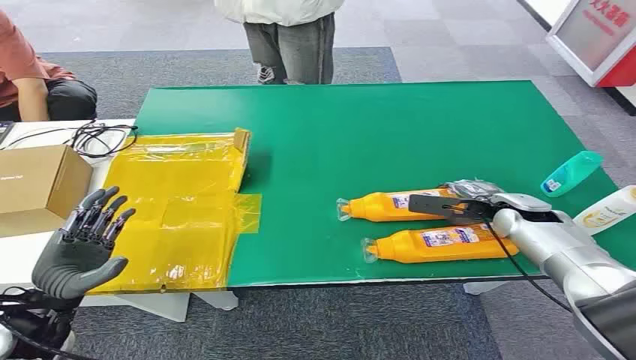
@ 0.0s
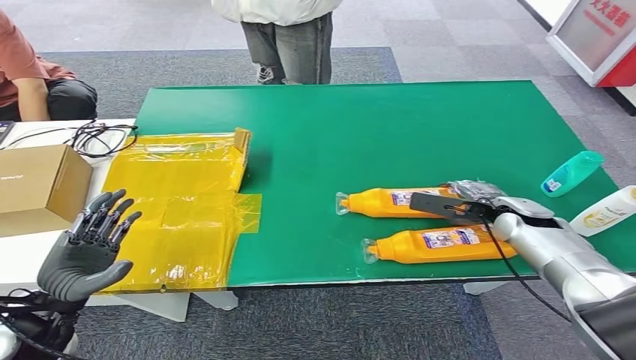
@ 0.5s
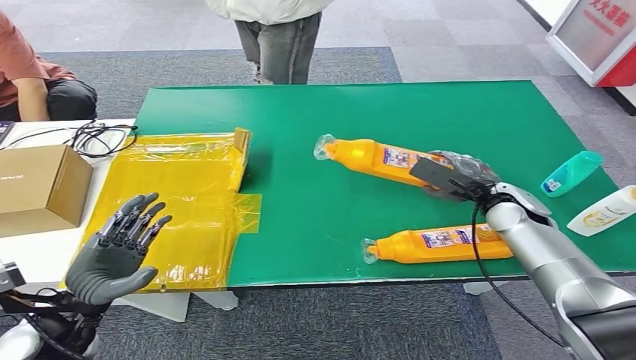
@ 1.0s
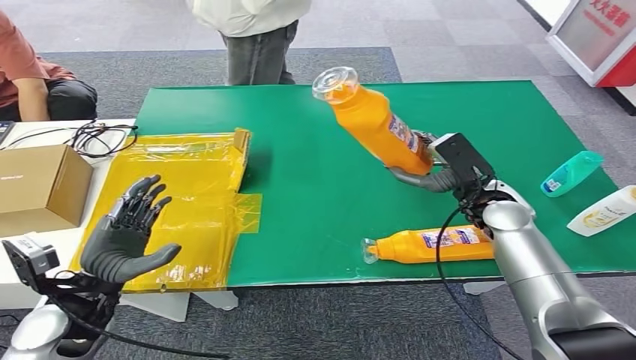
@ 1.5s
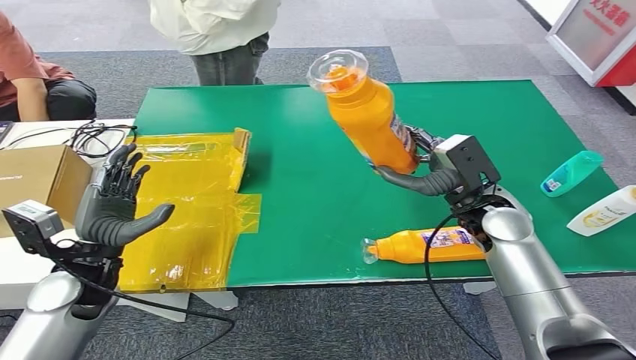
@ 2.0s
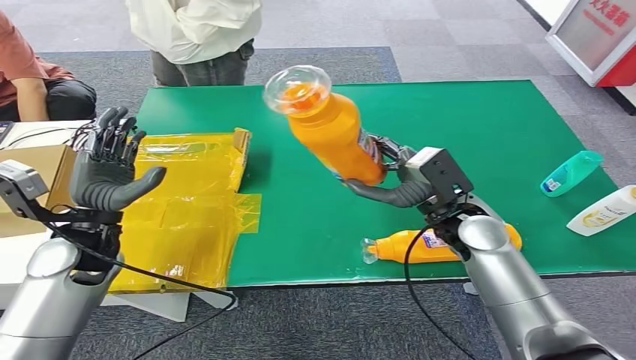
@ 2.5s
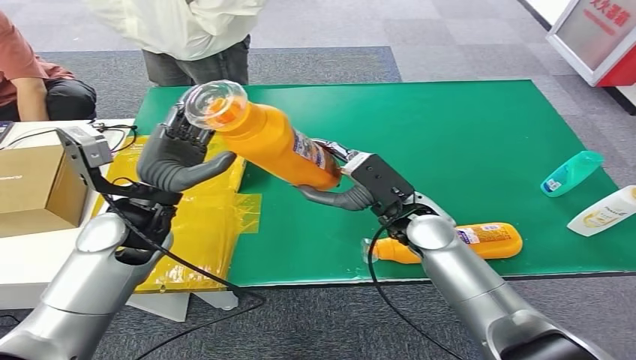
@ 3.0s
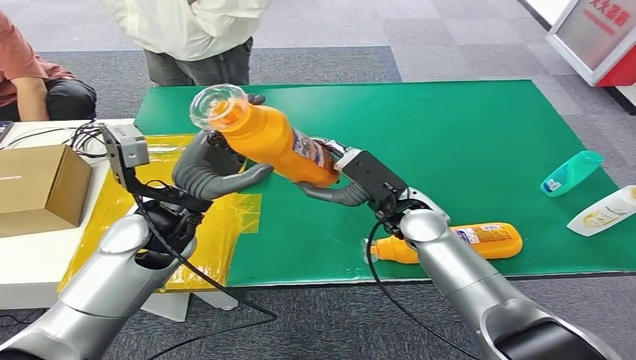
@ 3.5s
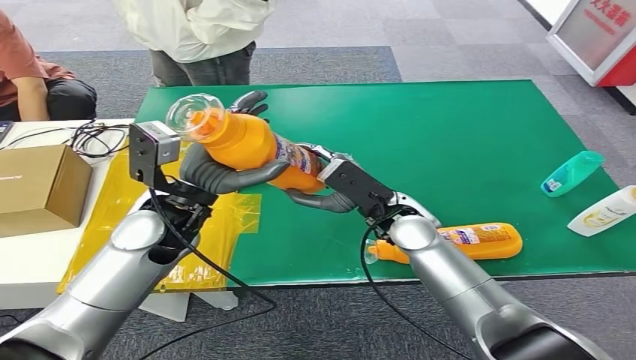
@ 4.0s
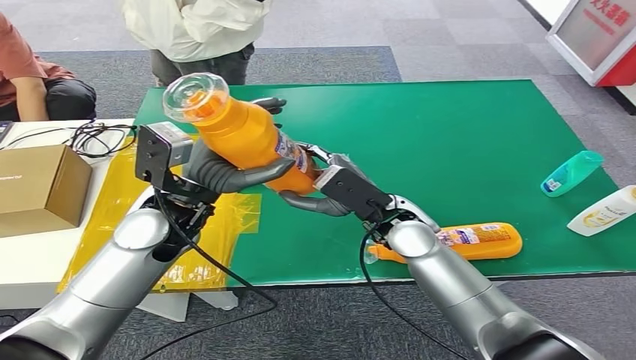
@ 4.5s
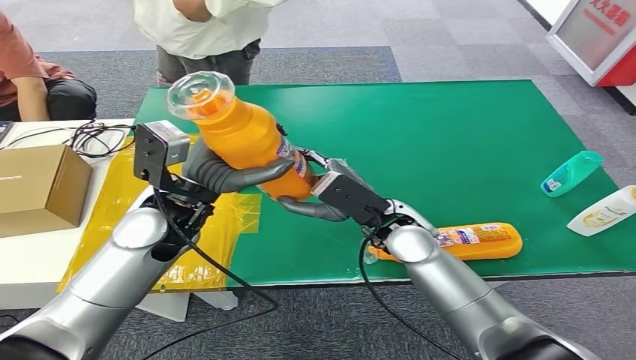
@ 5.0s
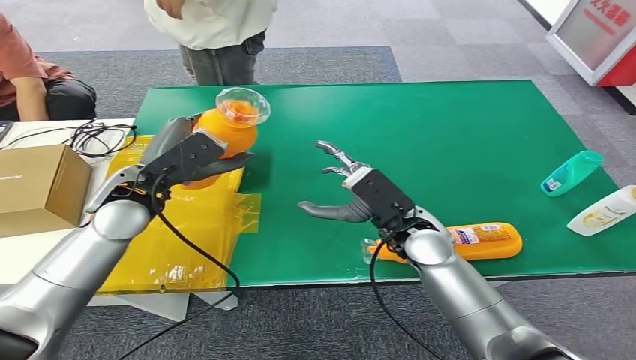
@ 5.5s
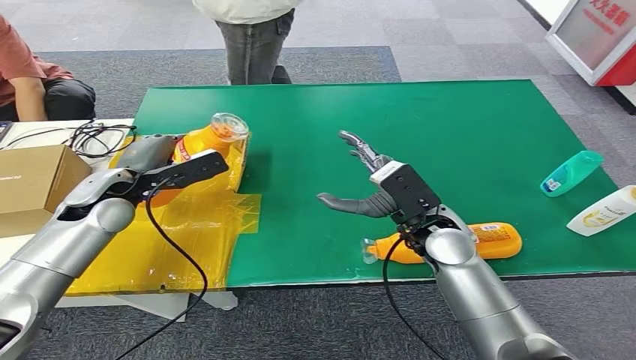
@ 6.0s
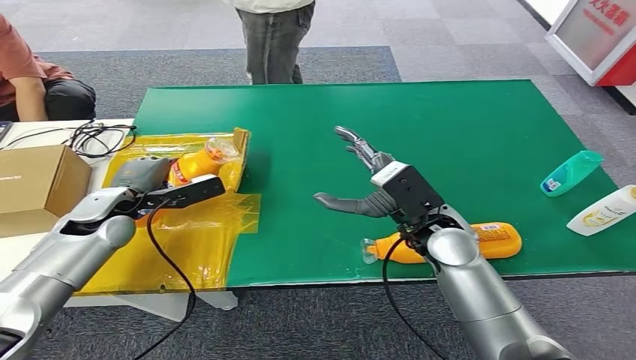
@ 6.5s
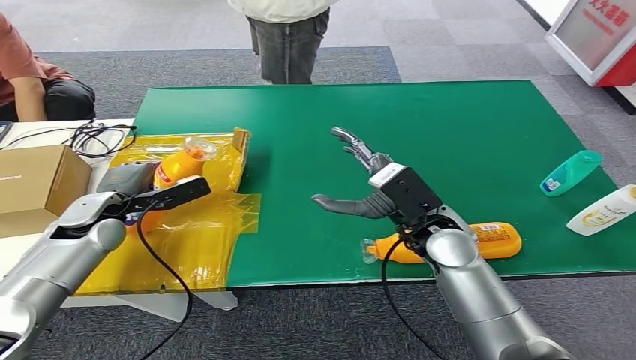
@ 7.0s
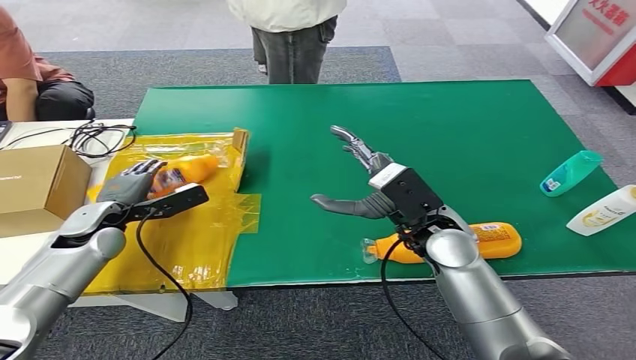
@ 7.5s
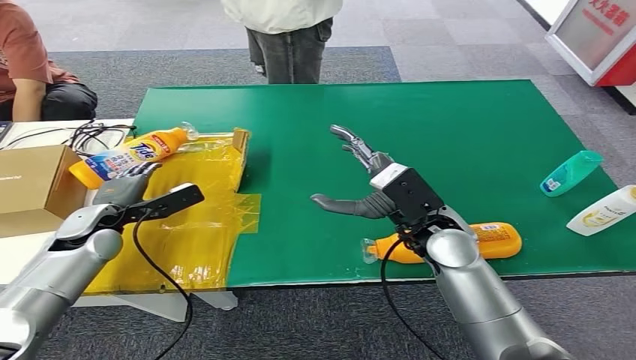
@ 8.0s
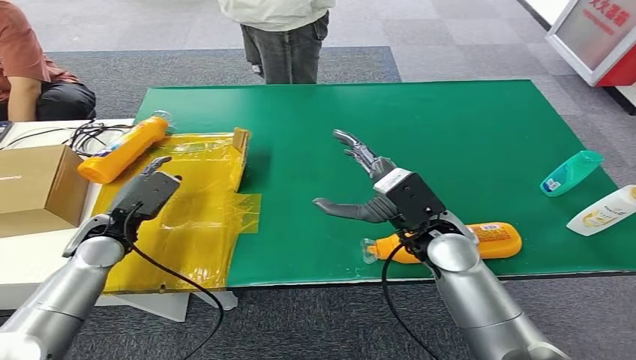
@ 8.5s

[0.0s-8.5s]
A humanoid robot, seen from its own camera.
Step, 0.0s to 2.0s: Pick up the bottle from the table.
Step, 2.5s to 8.5s: Turn the bottle to the front side.
6.5s to 8.5s: The left hand changes place by about 5 cm.

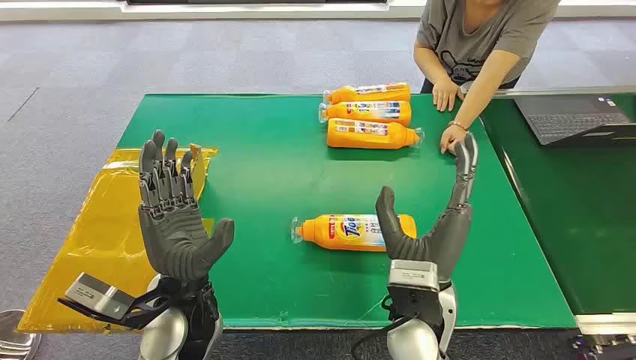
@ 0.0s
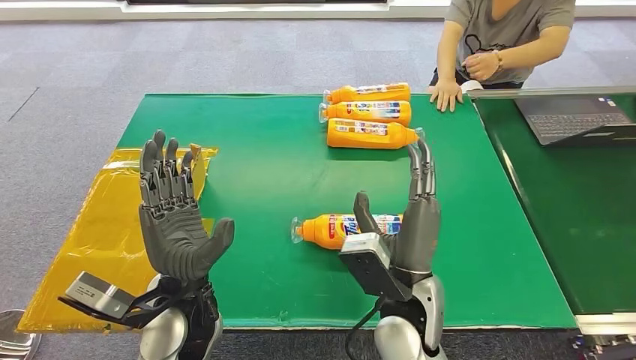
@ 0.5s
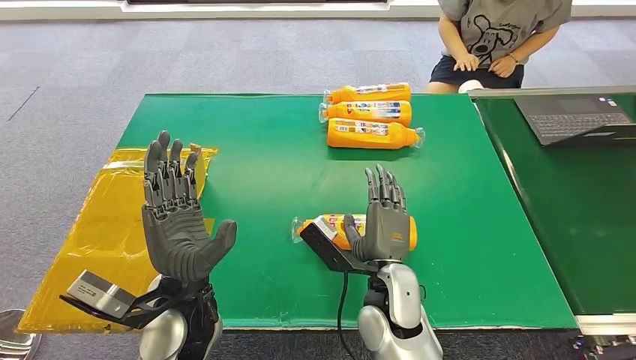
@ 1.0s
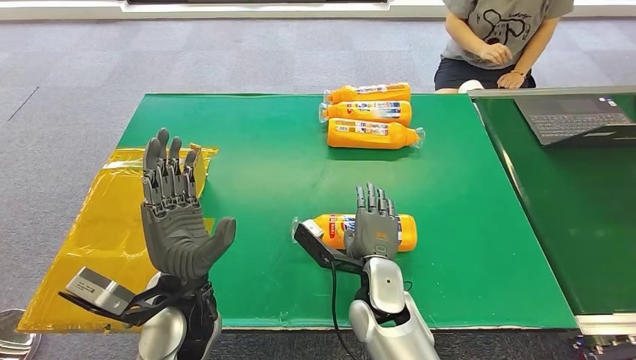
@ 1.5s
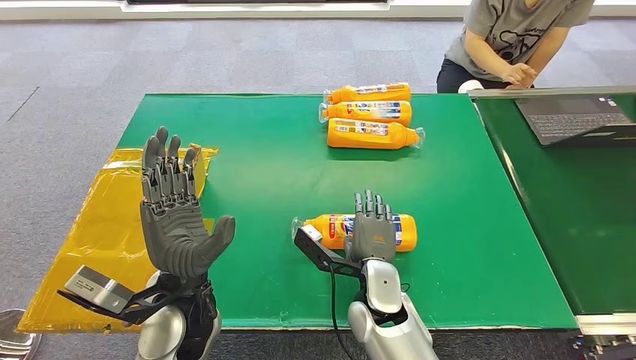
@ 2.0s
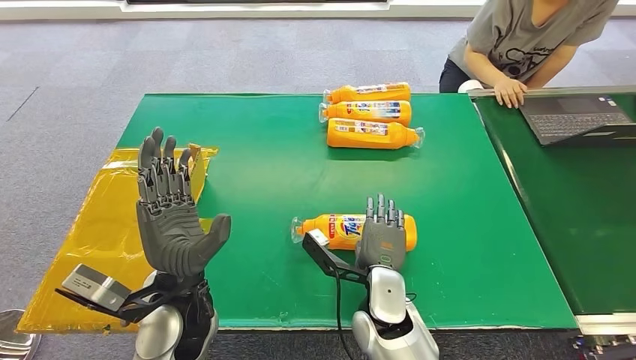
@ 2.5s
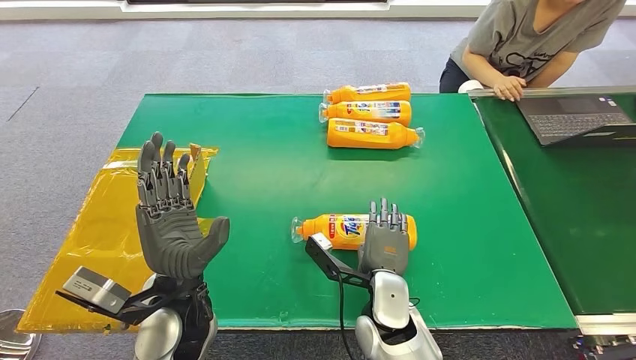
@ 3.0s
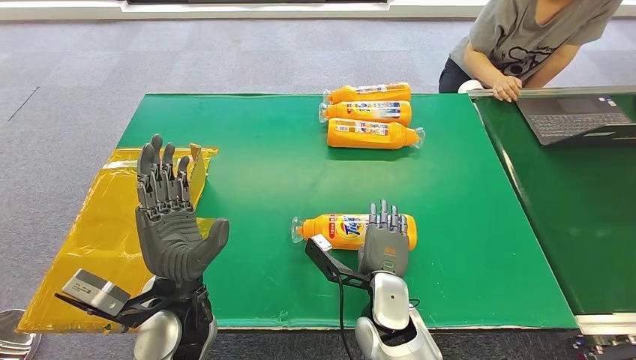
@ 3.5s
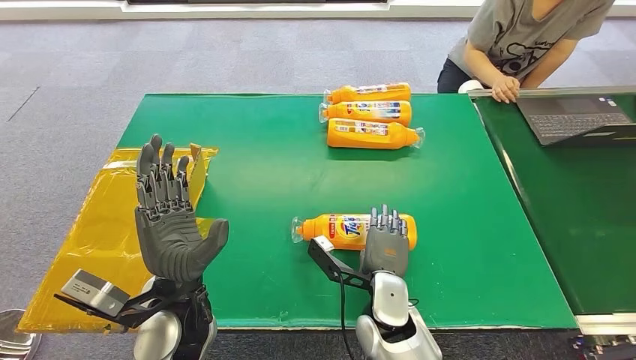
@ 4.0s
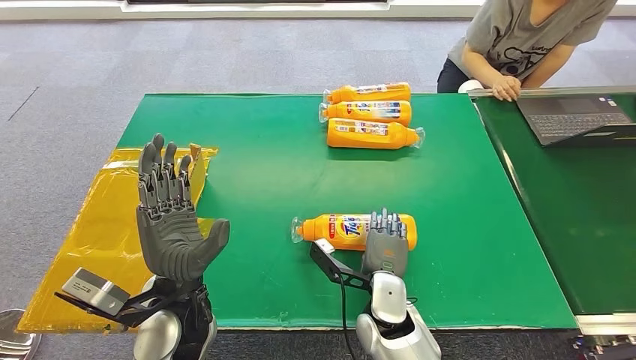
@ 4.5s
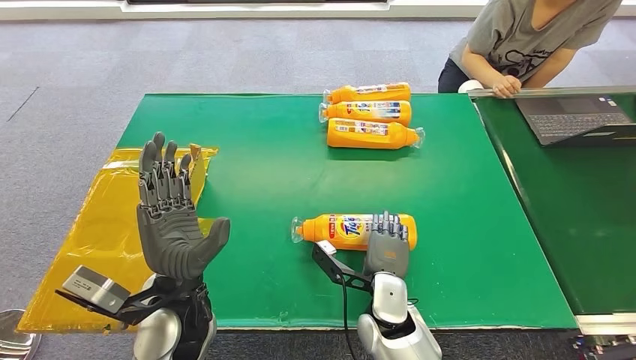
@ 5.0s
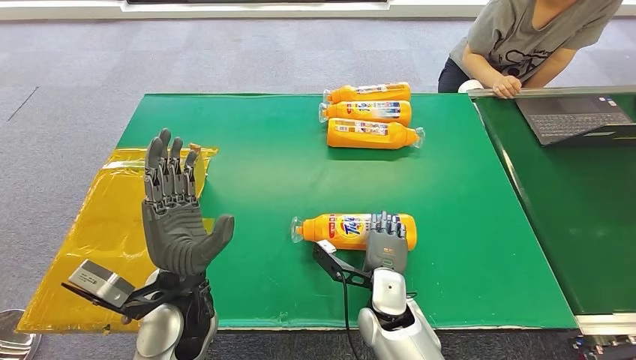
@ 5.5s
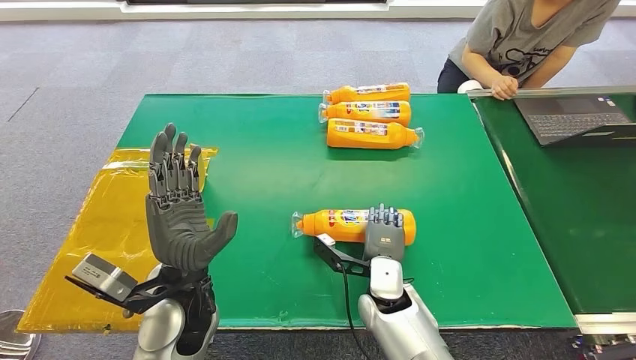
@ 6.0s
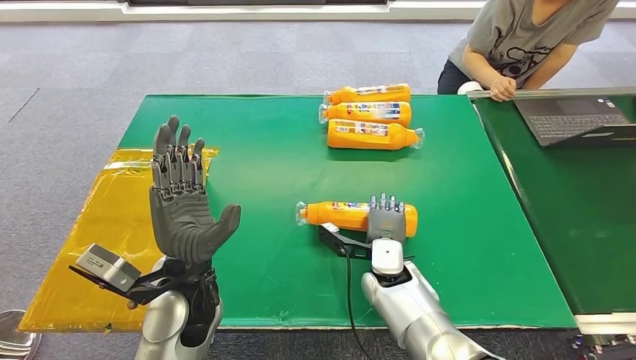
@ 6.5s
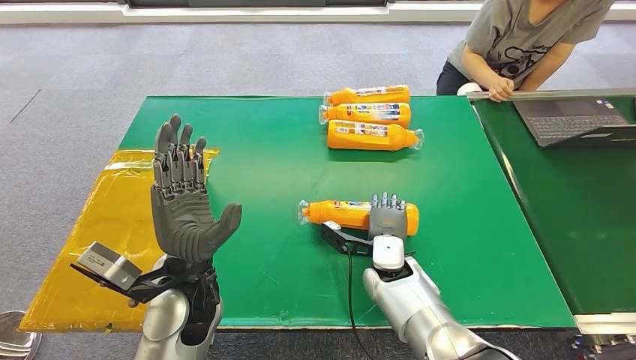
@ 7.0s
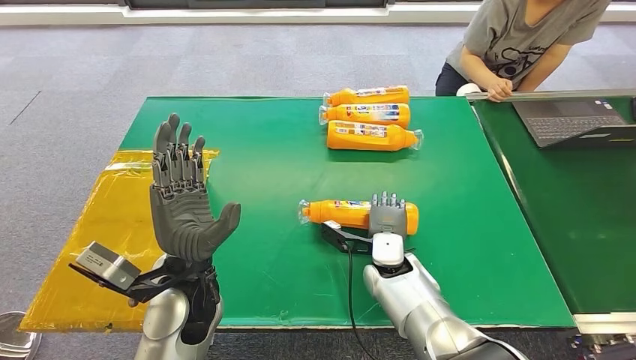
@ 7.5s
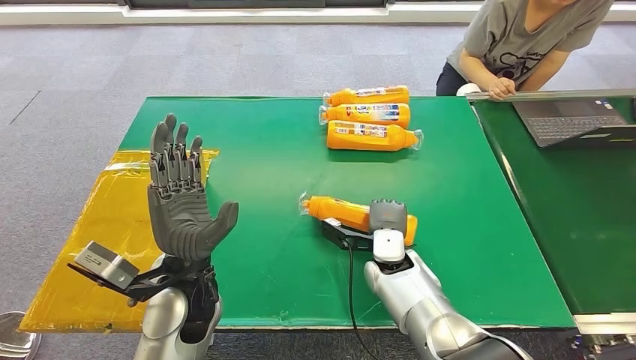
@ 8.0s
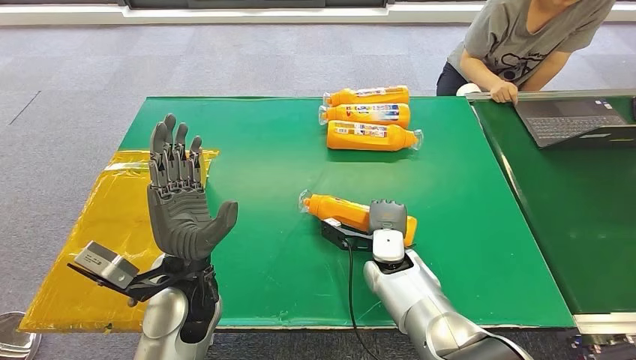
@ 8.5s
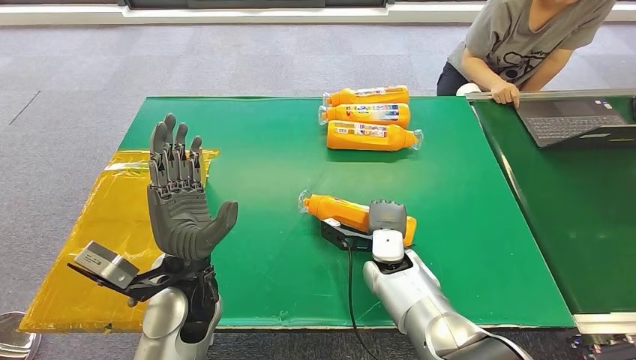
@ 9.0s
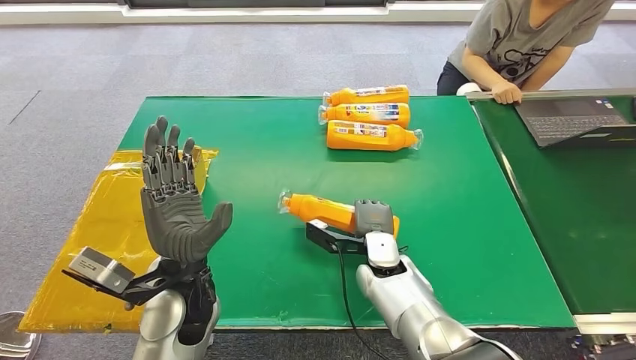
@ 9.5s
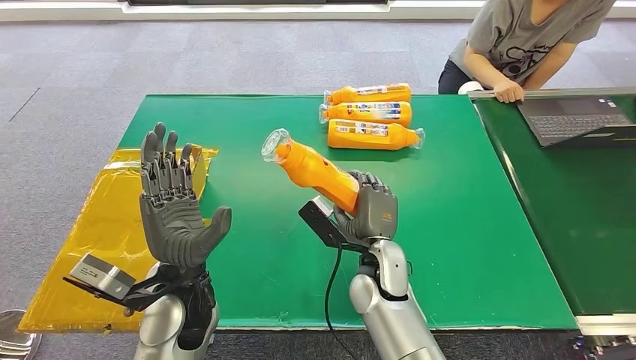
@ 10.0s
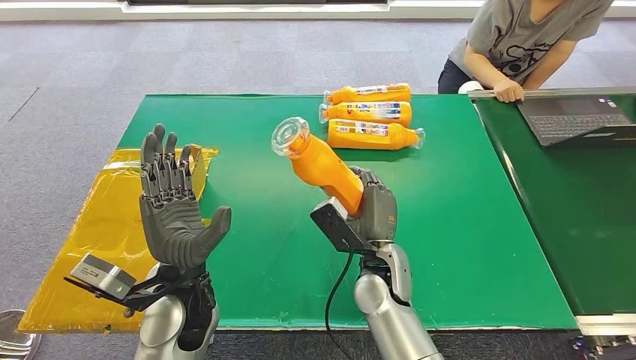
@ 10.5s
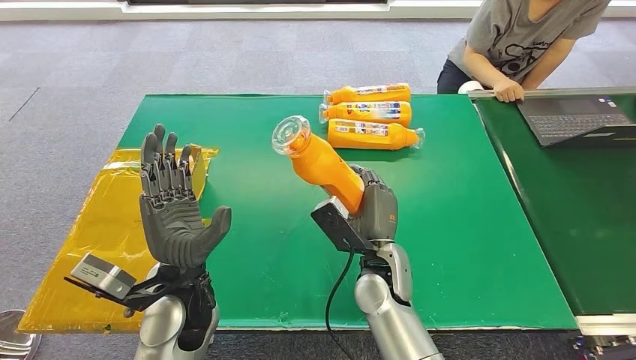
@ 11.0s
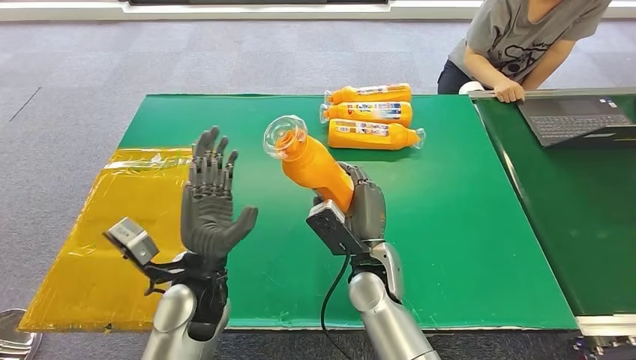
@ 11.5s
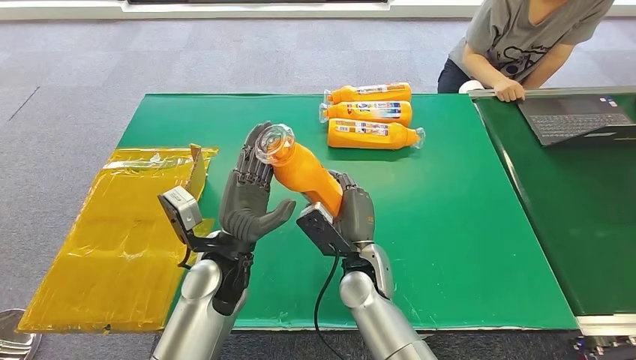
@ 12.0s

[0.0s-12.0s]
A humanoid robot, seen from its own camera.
Step, 0.0s to 10.0s: Pick up the bottle from the table.
2.0s to 6.0s: The hands make only small movements.
6.0s to 8.0s: The right hand is displaced forward by approximately 5 cm.
8.0s to 10.0s: The right hand moves approximately 5 cm.
10.0s to 12.0s: The left hand moves approximately 5 cm.
